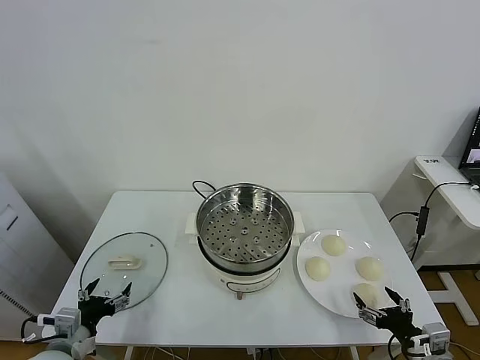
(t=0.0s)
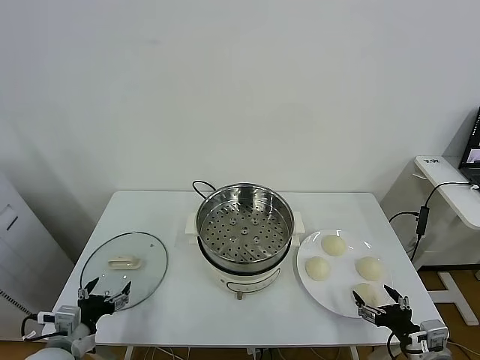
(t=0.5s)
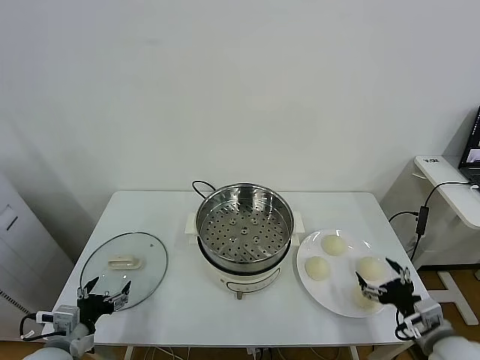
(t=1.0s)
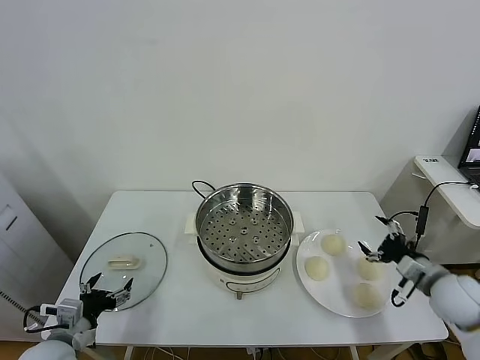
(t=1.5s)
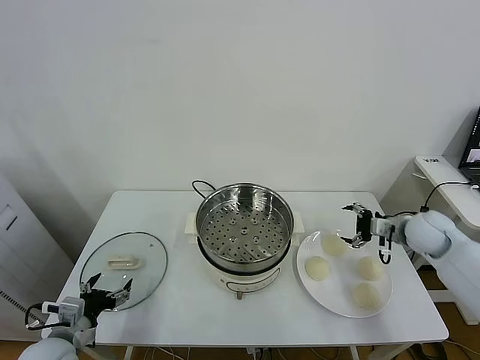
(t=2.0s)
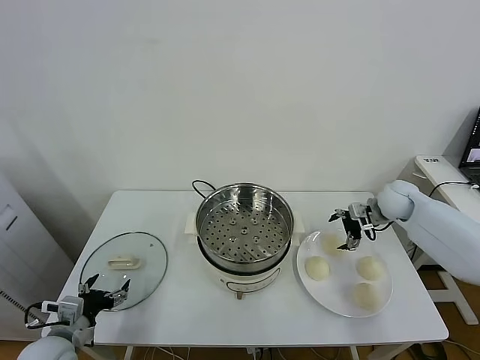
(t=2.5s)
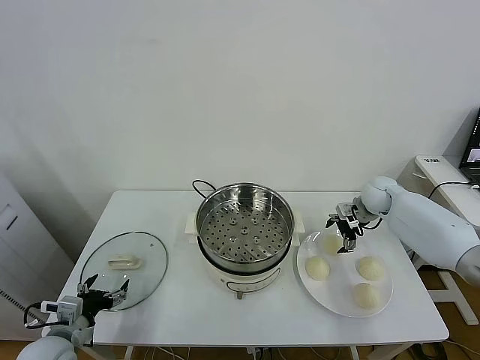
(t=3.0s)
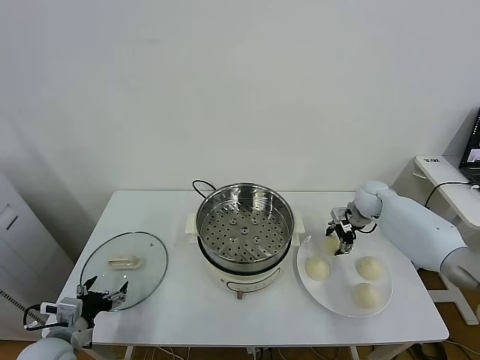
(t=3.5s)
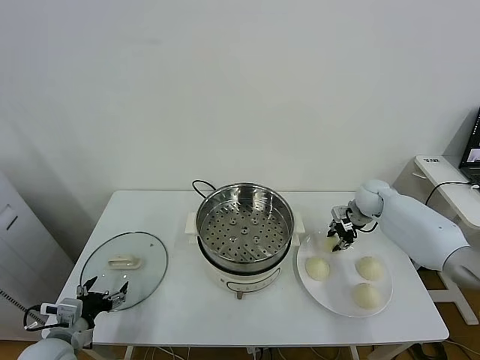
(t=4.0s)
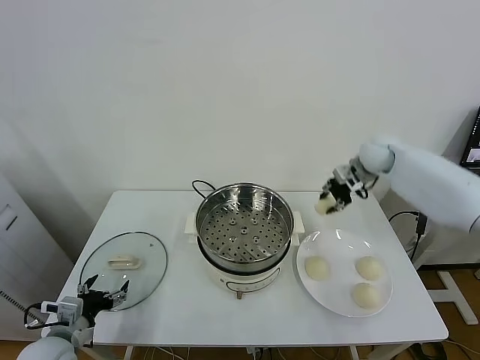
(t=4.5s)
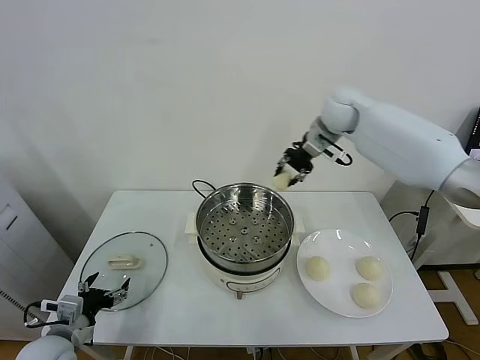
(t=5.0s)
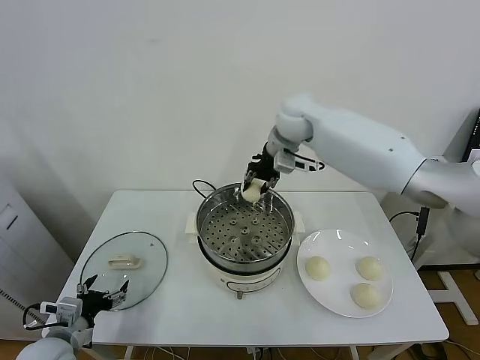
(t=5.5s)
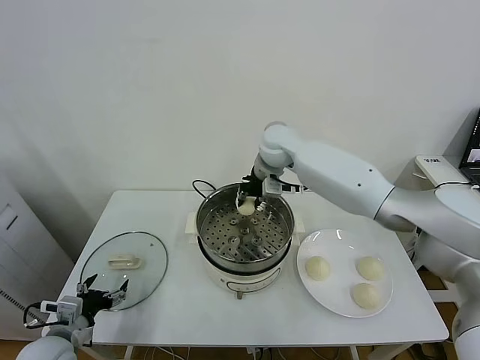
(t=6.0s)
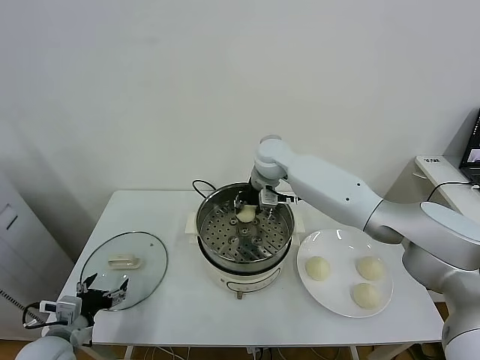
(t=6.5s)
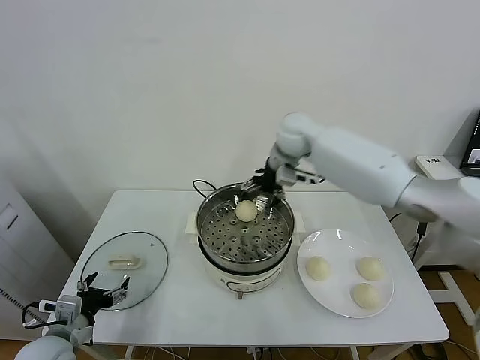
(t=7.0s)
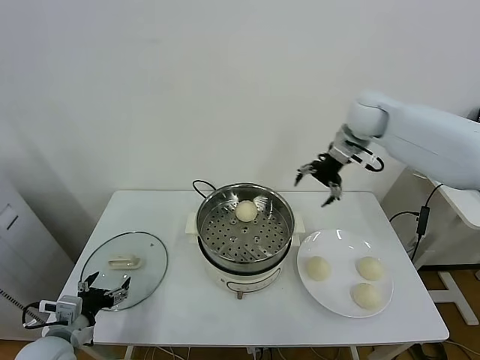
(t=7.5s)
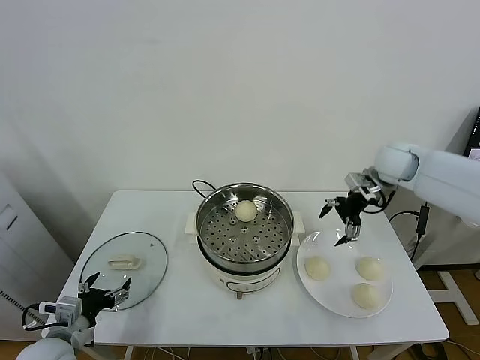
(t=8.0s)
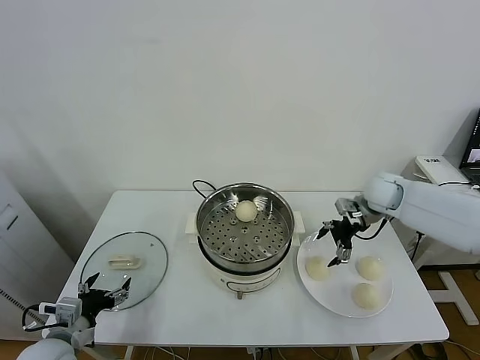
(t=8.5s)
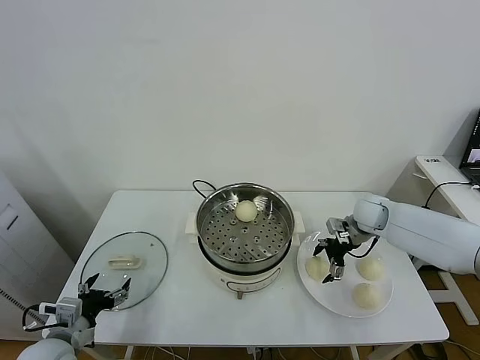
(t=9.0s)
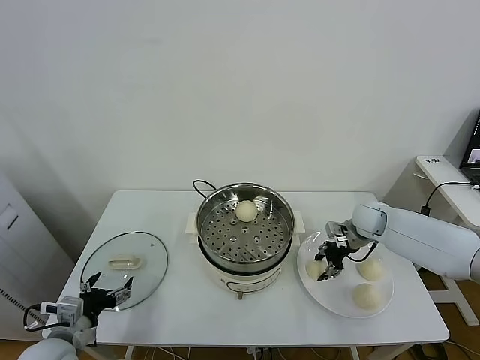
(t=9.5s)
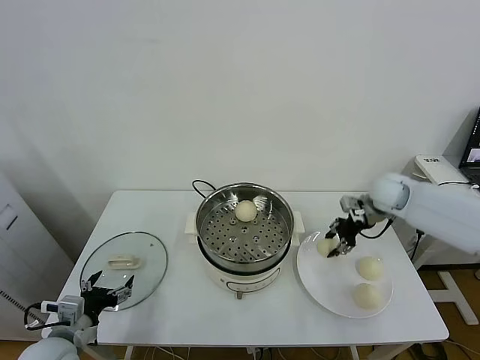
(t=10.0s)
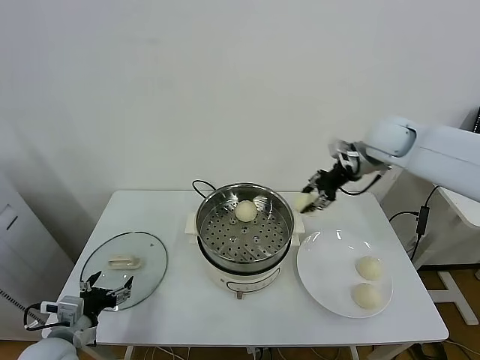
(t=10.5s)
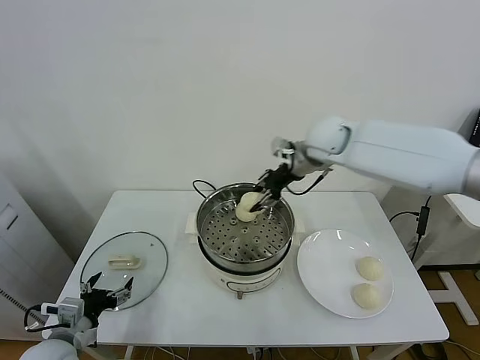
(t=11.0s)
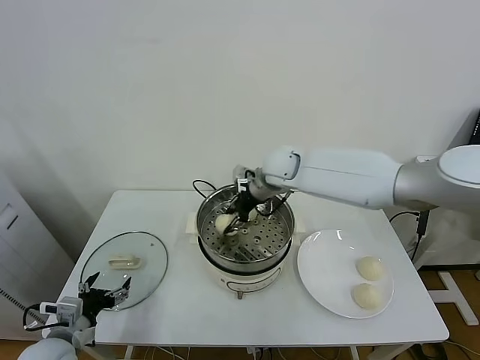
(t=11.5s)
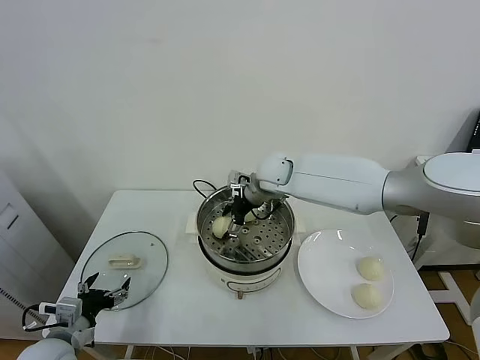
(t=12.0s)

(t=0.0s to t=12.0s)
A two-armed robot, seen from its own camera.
Task of the whole recording: take steamed baozi put them in steamer.
Step, t=0.0s - t=3.5s: Grasp the baozi in the plate with right gripper.
Step, t=4.0s - t=6.5s: Place the baozi on the steamer with right gripper.
Step, t=7.0s - t=9.0s: Grasp the baozi in the plate with right gripper.
t=2.0s - t=4.0s: The right gripper is displaced forward and to the left by roughly 15 cm, and closes.
t=4.0s - t=6.0s: The right gripper shifts about 30 cm to the left and upward.
t=6.0s - t=8.0s: The right gripper travels to the right by approximately 25 cm, and opens.
t=8.0s - t=10.0s: The right gripper reaches about 15 cm downward, then returns, and closes up.
t=10.0s - t=12.0s: The right gripper moves to the left, approximately 25 cm, and opens up.

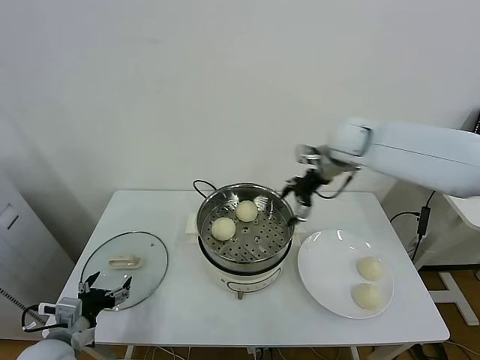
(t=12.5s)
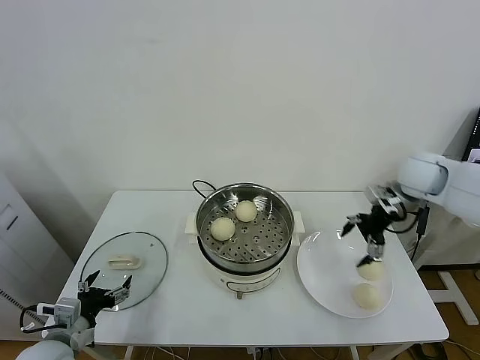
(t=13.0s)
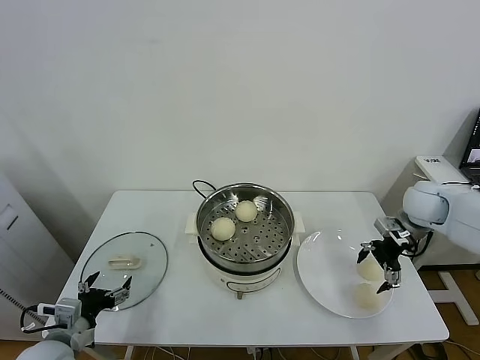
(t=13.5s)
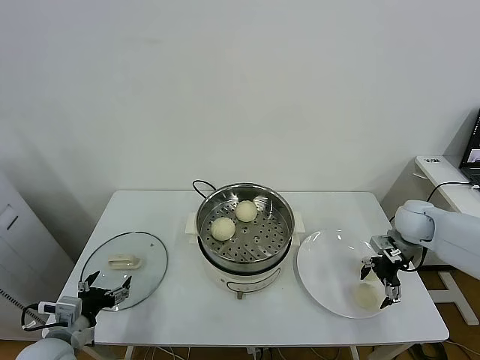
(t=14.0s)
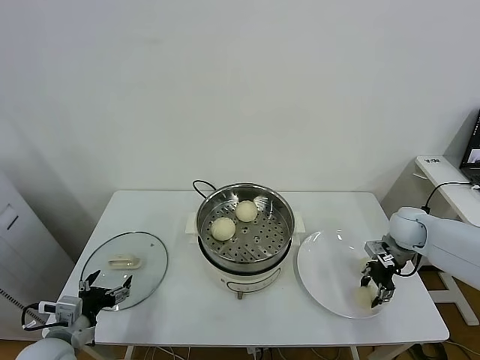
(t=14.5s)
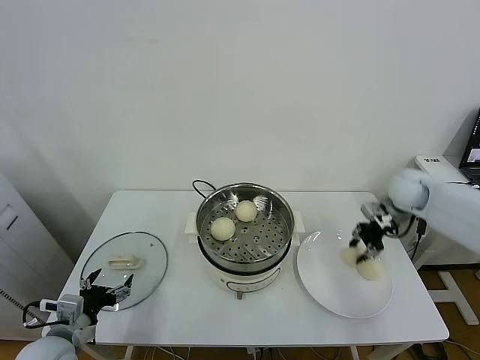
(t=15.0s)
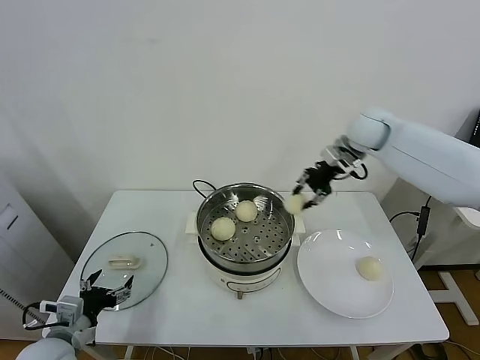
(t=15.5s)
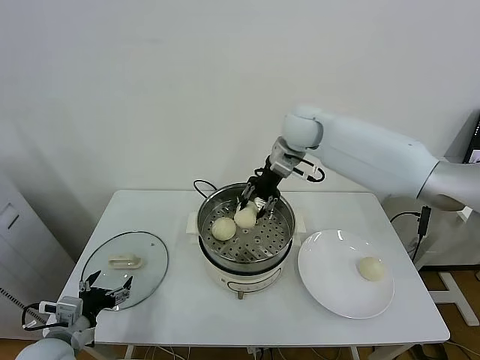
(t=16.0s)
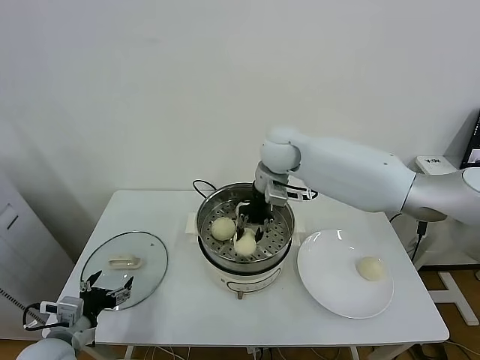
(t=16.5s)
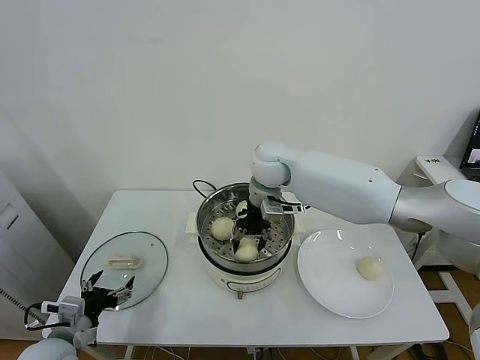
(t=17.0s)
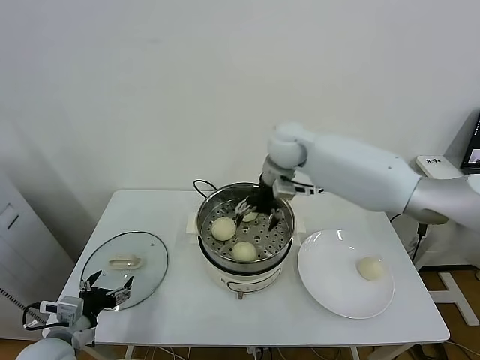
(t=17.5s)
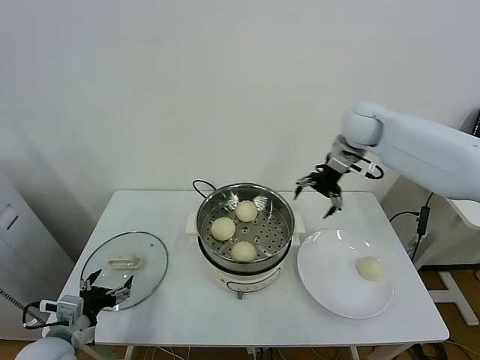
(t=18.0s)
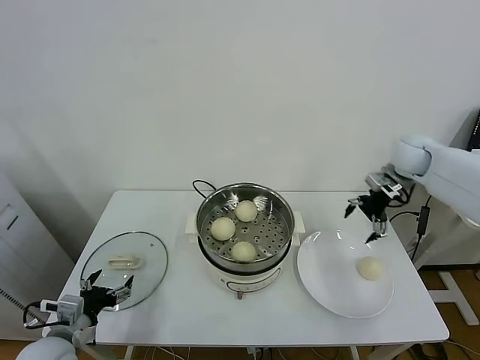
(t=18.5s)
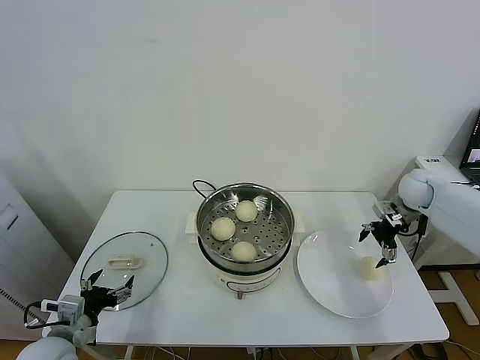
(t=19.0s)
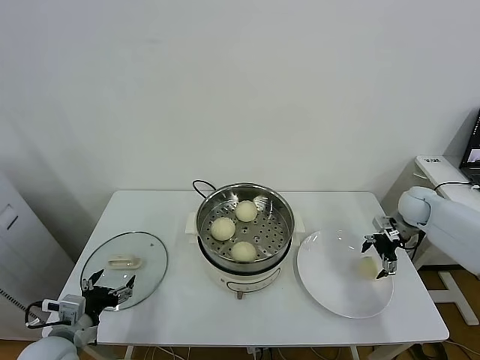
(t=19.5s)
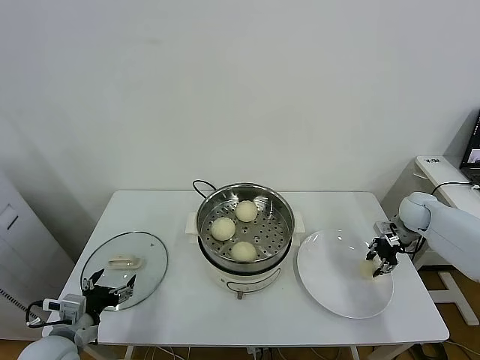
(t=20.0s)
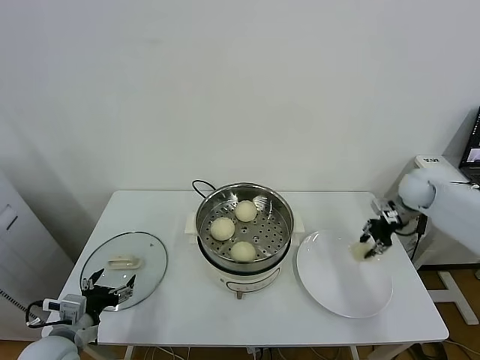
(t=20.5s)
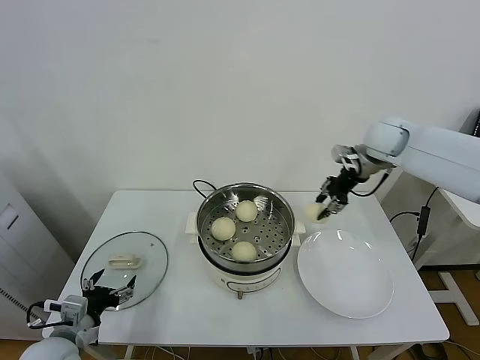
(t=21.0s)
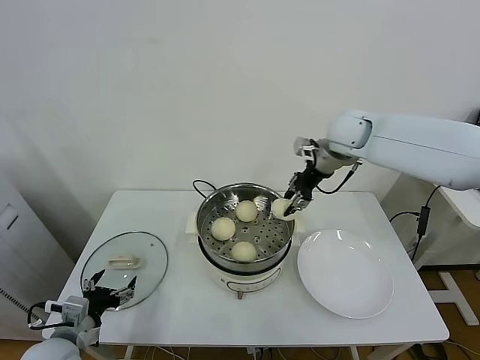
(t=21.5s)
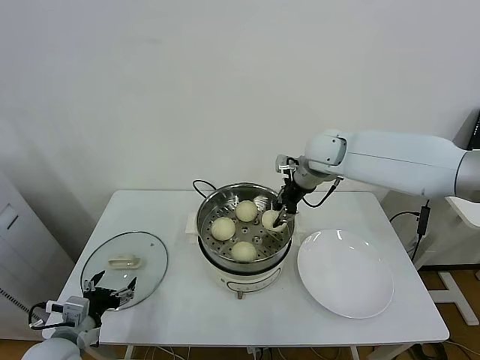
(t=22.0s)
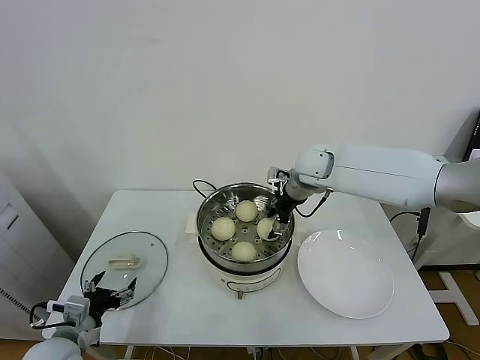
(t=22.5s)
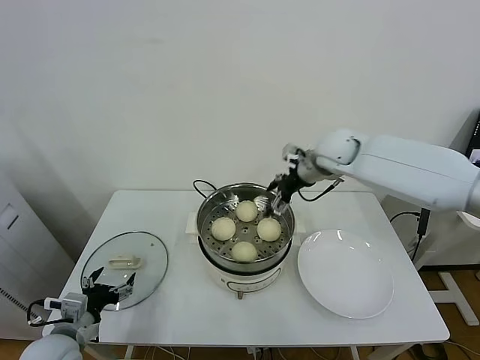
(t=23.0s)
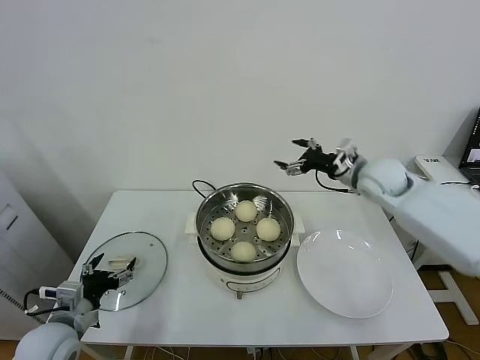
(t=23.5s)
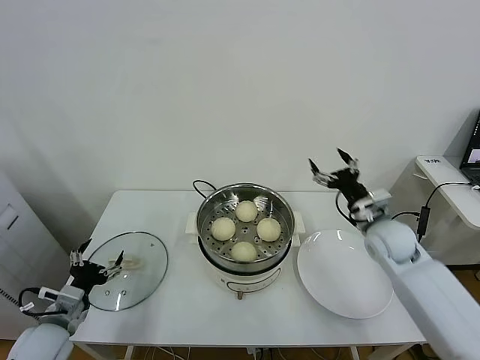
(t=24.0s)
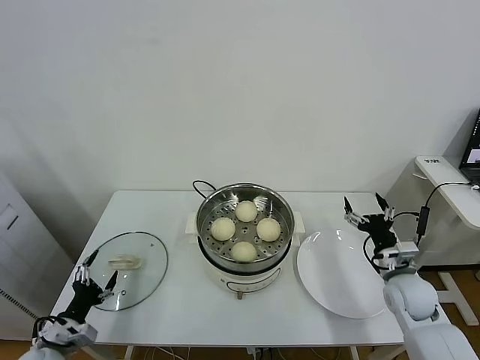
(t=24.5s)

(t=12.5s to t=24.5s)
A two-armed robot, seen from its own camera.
Task of the whole recording: take steamed baozi put them in steamer.
Step, t=12.5s - t=14.0s: Grasp the baozi in the plate with right gripper.
Step, t=14.5s - t=17.0s: Place the baozi on the steamer with right gripper.
Step, t=17.5s - t=19.5s: Grasp the baozi in the plate with right gripper.
Step, t=20.0s - t=22.5s: Place the baozi on the steamer with right gripper.
t=12.5s - t=14.5s: The right gripper heads downward and to the right, covering about 25 cm, and closes up.
t=14.5s - t=16.5s: The right gripper is displaced to the left and upward by approximately 40 cm.
t=16.5s - t=18.5s: The right gripper is displaced to the right by approximately 30 cm, and opens up.
t=18.5s - t=20.5s: The right gripper heads downward, covering approximately 10 cm, and closes up.
t=20.5s - t=22.5s: The right gripper moves to the left, about 25 cm, and opens up.
t=22.5s - t=24.5s: The left gripper moves approximately 5 cm. The right gripper goes approximately 35 cm backward, to the right and downward, and opens up.

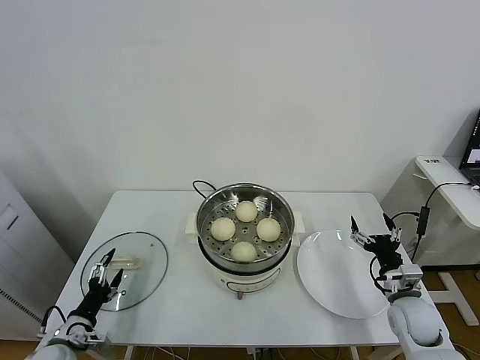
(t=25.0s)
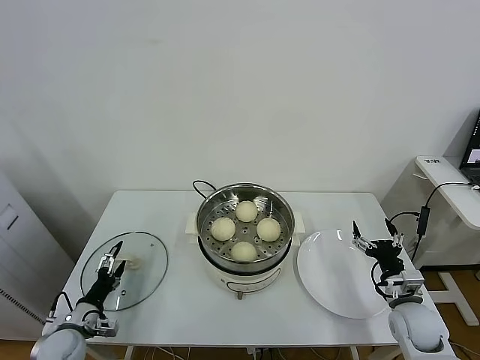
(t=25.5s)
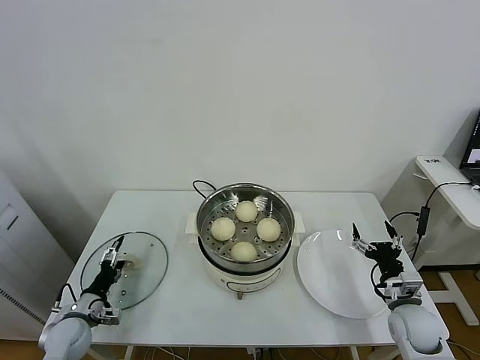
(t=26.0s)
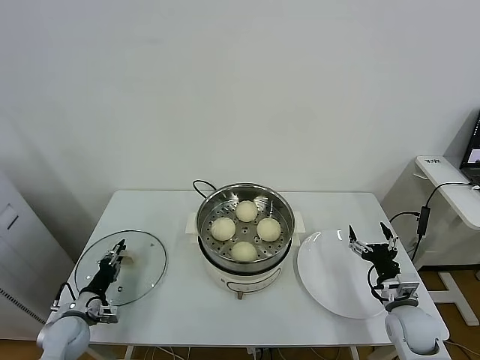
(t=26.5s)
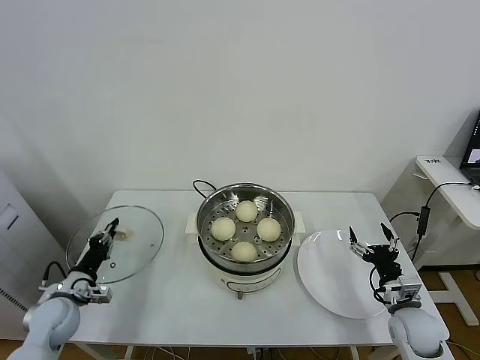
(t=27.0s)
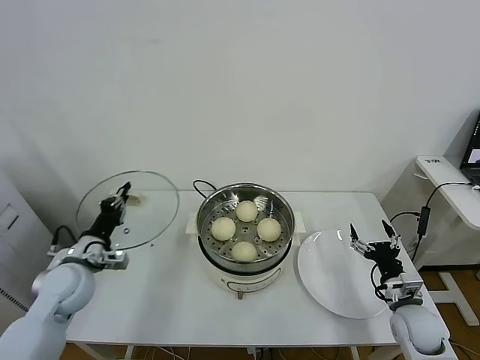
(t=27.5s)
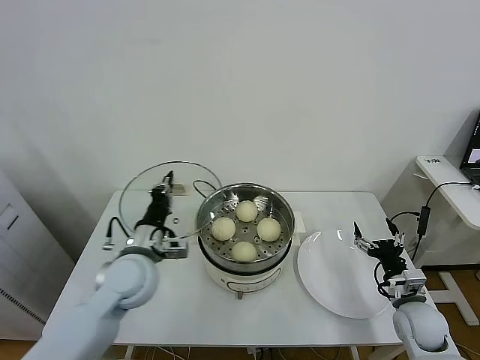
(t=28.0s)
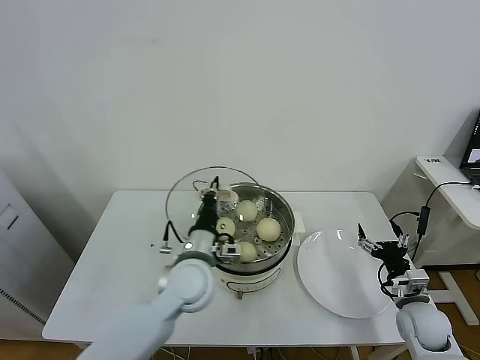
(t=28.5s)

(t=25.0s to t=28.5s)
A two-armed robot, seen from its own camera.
Task of the whole recording: take steamed baozi put them in steamer.
t=25.0s - t=27.0s: The left gripper heads forward, covering about 10 cm, and closes its fingers.
t=27.0s - t=28.5s: The left gripper shifts about 35 cm to the right and upward.
